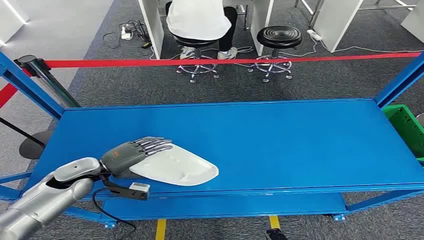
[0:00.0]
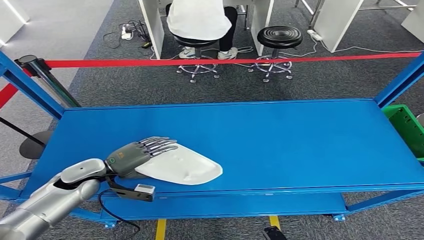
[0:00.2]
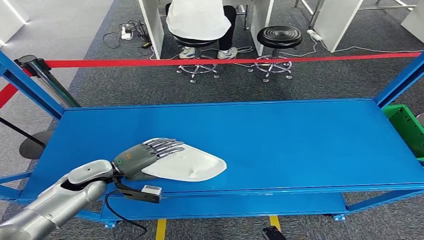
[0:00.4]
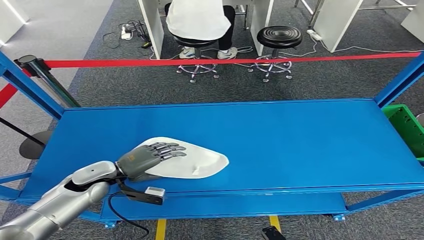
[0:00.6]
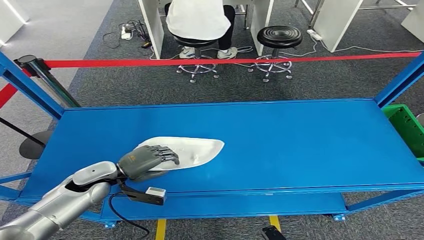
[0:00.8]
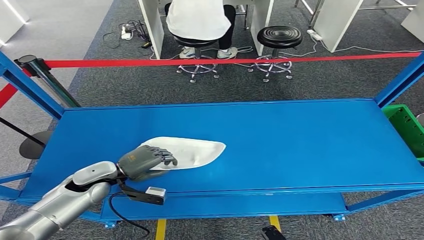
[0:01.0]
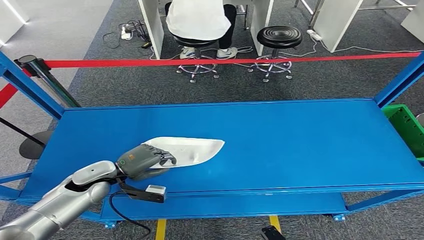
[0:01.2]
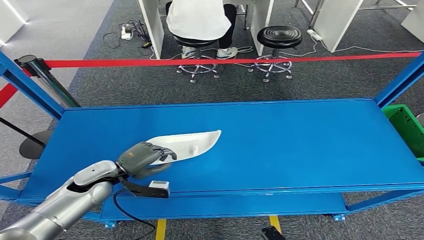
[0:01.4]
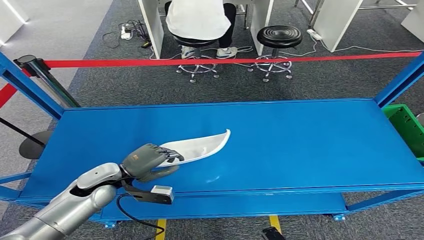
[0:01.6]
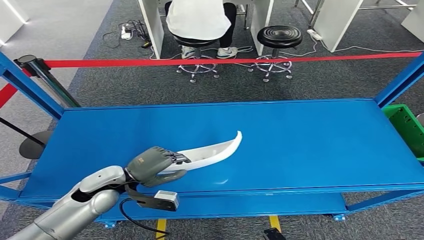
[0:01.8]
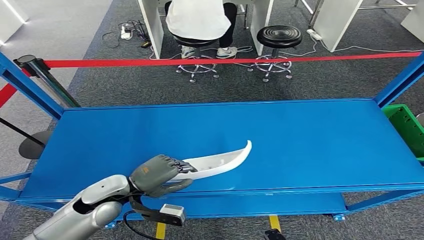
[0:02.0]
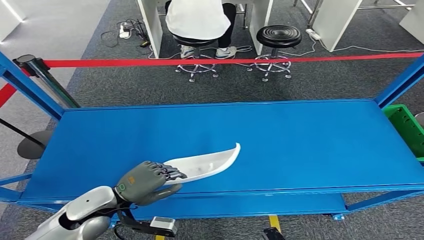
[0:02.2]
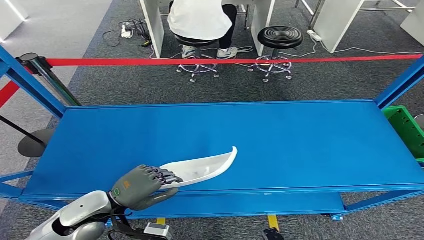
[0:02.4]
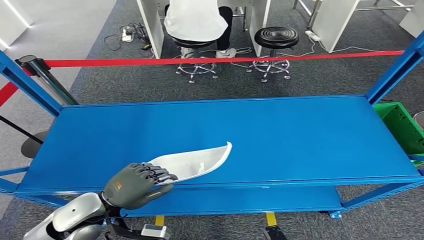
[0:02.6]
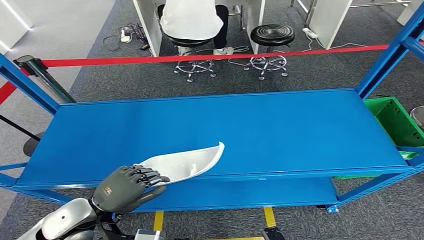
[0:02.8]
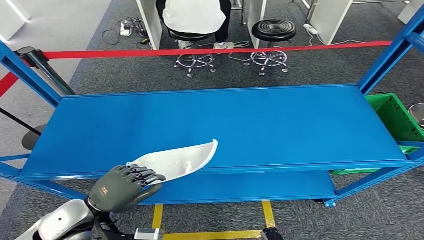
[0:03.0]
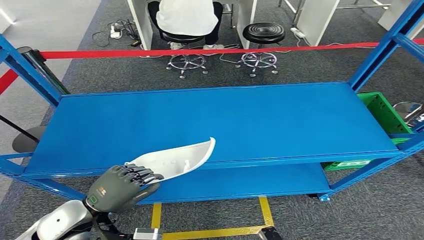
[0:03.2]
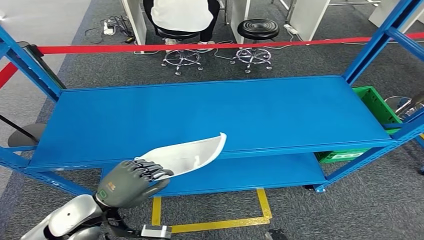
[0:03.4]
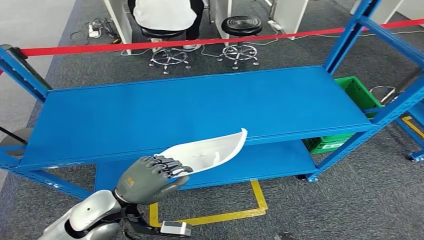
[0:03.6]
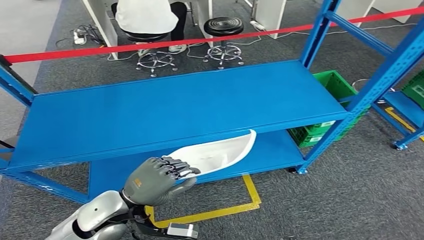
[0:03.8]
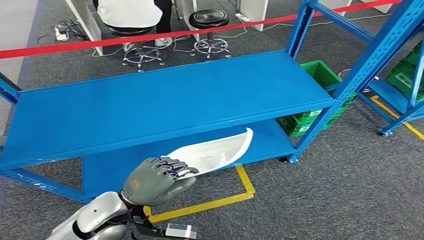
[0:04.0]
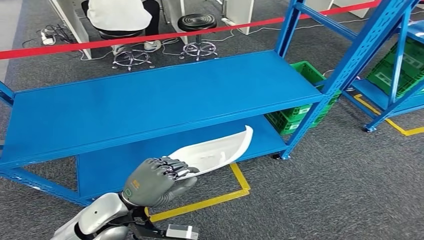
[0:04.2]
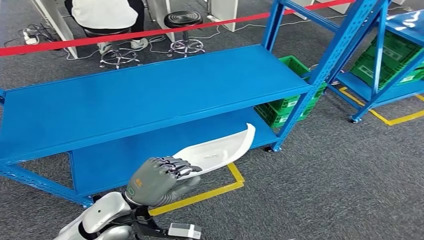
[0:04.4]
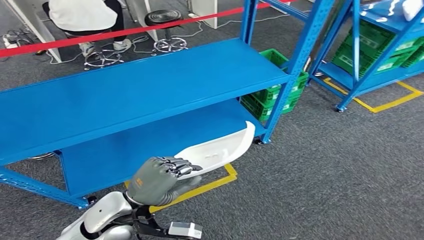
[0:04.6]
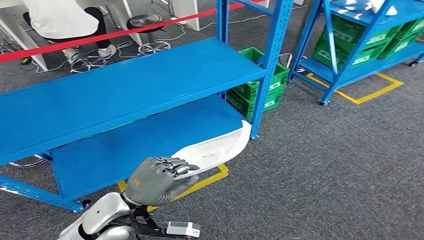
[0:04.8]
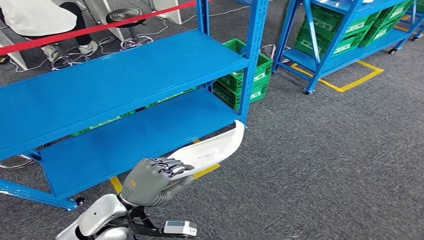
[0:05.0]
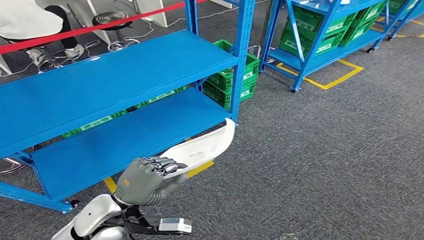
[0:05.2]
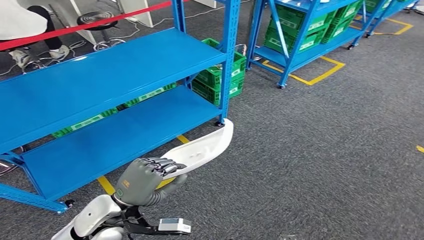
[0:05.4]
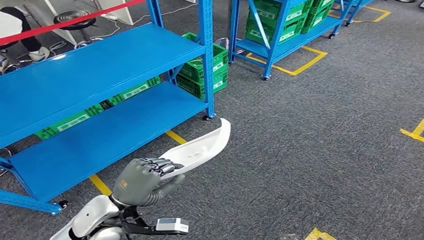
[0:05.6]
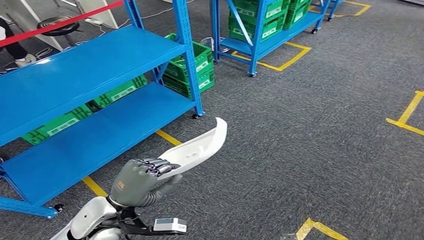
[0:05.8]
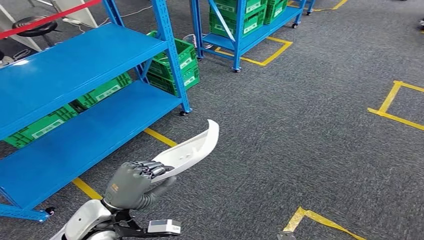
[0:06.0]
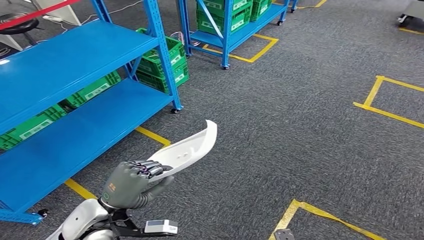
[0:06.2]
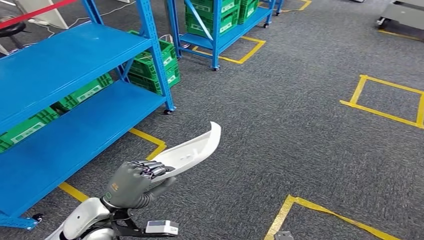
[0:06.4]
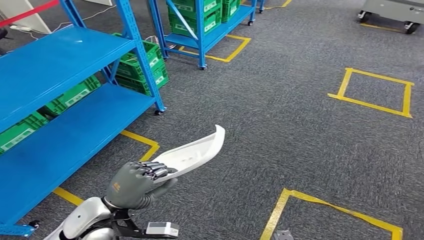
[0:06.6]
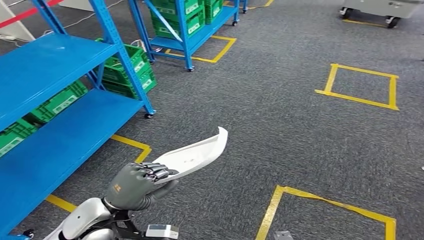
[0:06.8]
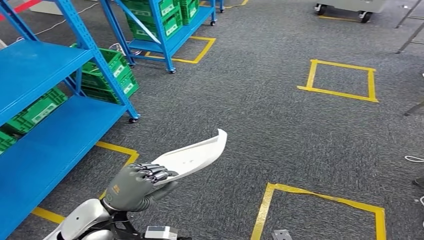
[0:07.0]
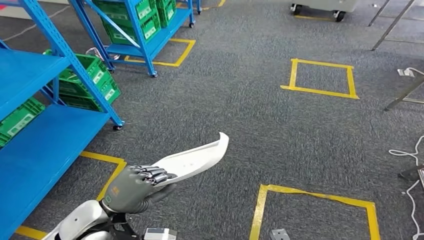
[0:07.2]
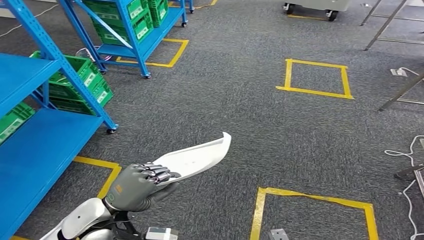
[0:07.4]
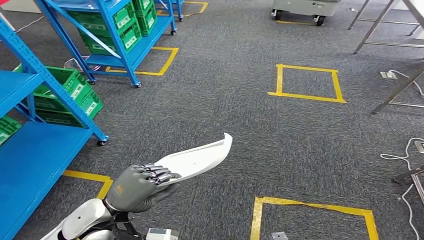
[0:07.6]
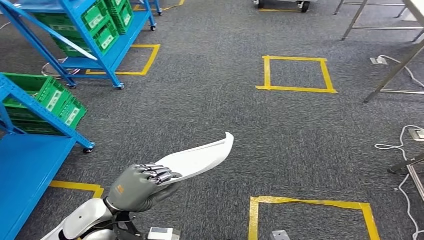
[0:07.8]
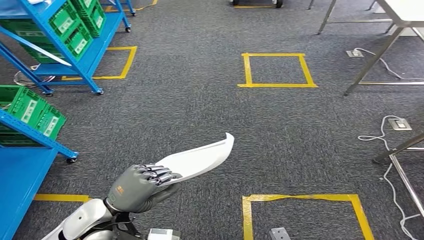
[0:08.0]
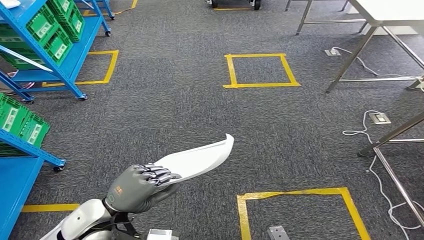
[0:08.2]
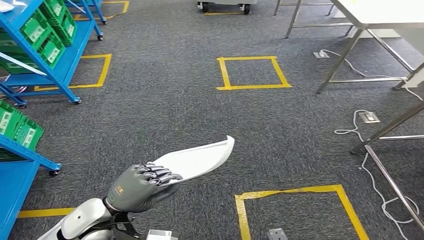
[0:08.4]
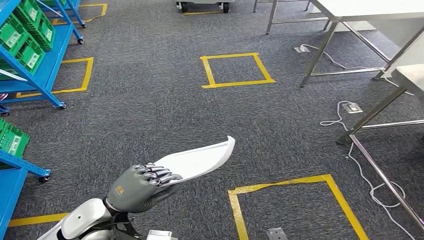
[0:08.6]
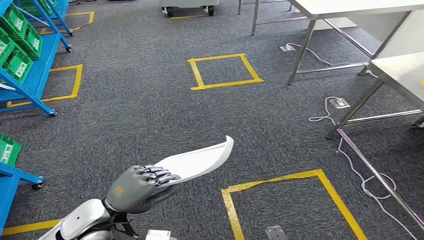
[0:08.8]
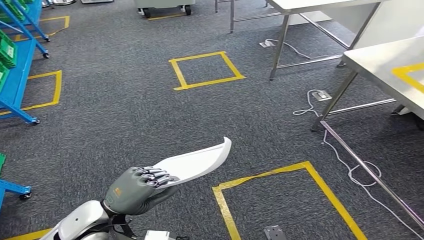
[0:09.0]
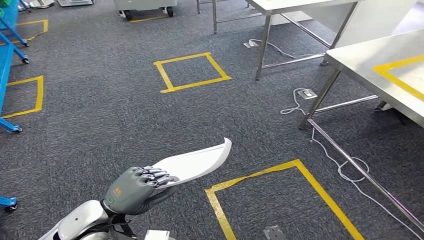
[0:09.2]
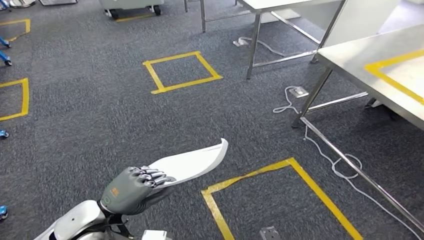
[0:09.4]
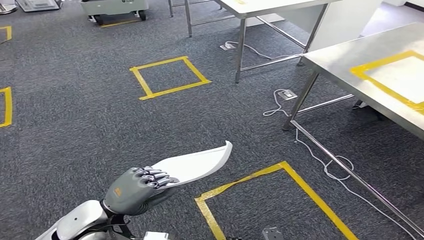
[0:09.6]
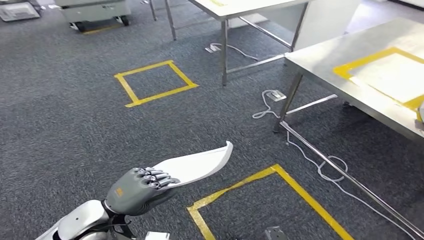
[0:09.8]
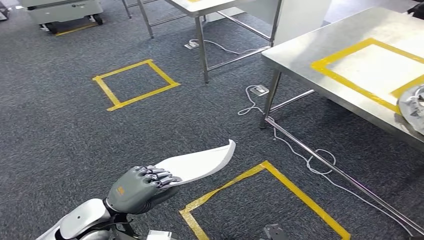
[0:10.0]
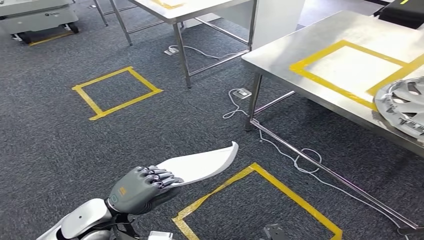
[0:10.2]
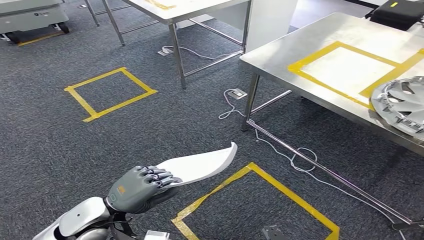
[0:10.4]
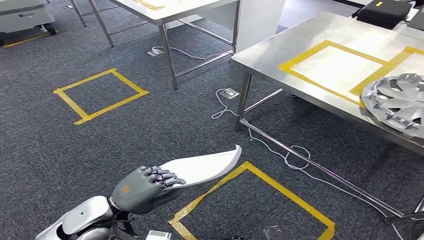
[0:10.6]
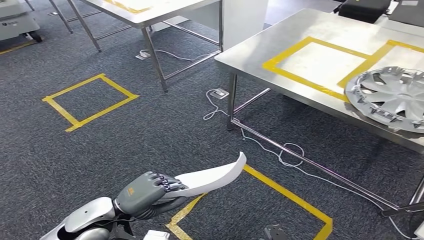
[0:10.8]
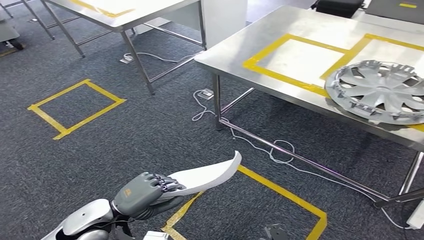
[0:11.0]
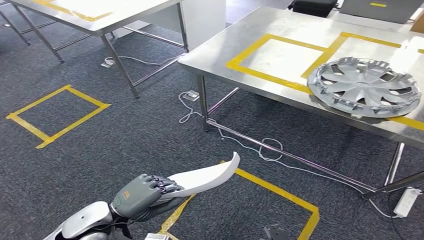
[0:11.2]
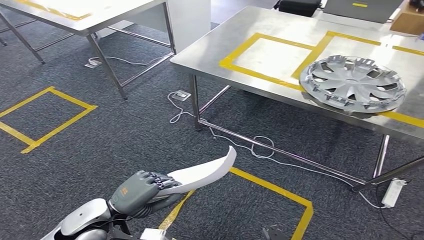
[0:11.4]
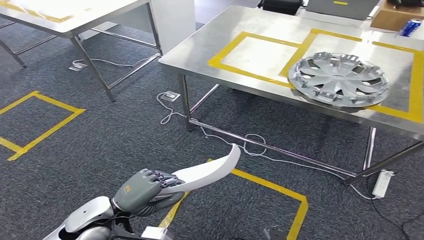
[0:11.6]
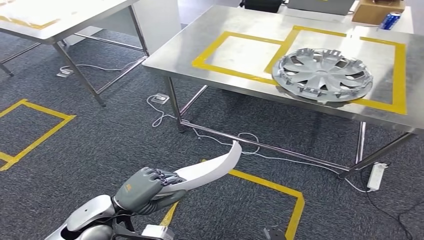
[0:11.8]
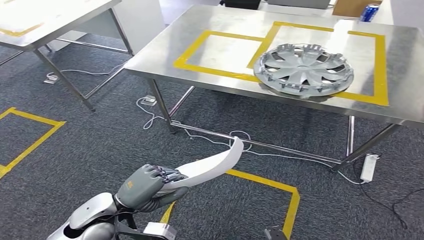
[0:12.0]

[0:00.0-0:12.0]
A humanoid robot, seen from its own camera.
Step, 0:00.0 to 0:05.0: Take small components from the rack.

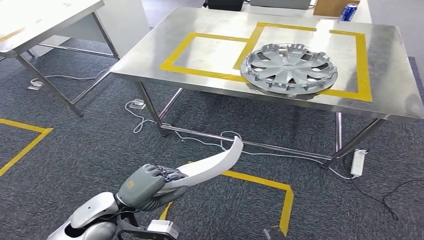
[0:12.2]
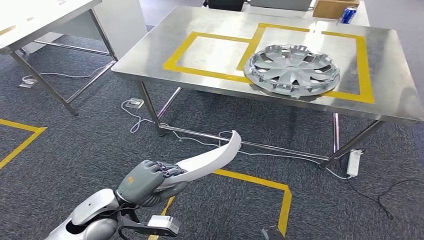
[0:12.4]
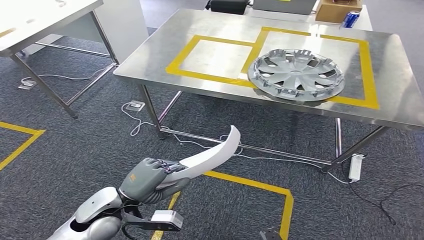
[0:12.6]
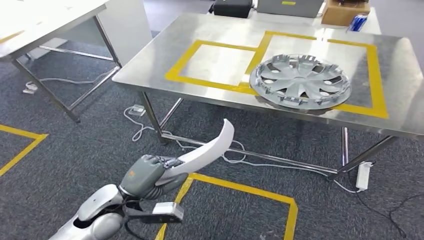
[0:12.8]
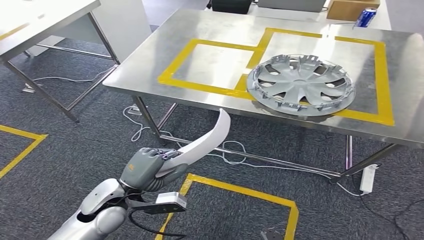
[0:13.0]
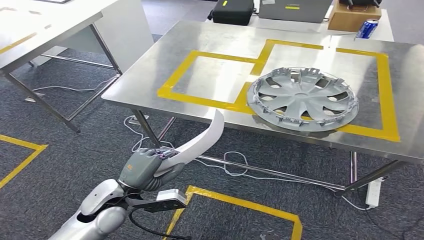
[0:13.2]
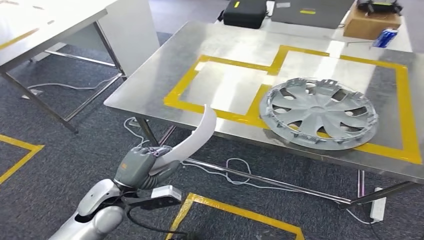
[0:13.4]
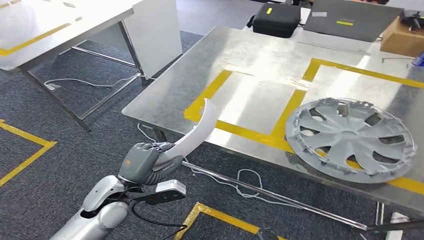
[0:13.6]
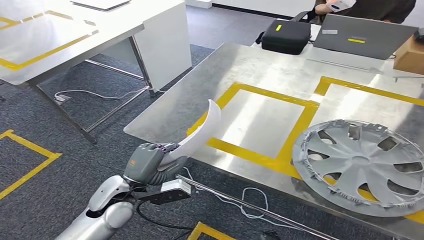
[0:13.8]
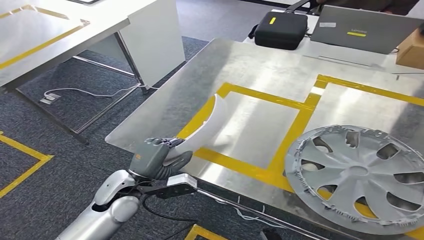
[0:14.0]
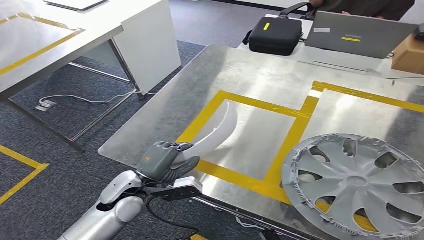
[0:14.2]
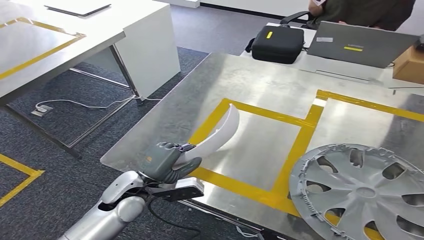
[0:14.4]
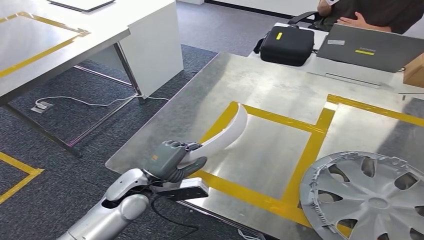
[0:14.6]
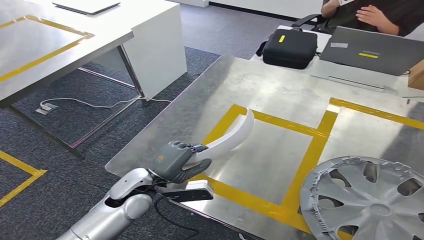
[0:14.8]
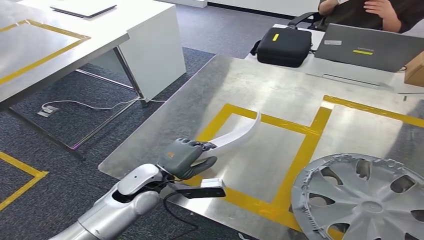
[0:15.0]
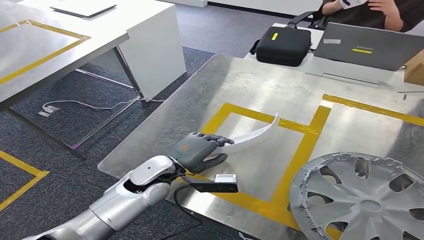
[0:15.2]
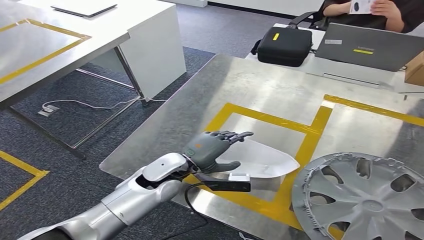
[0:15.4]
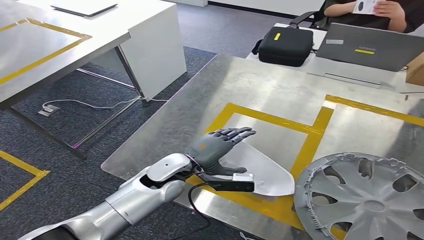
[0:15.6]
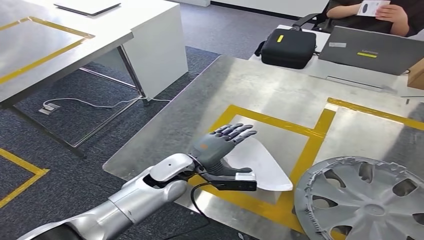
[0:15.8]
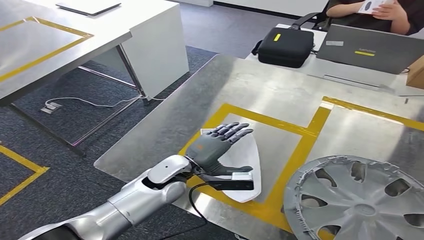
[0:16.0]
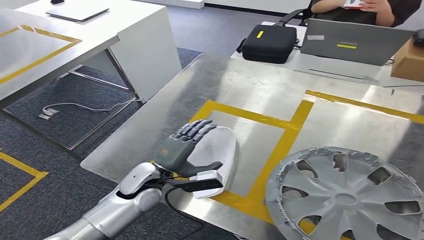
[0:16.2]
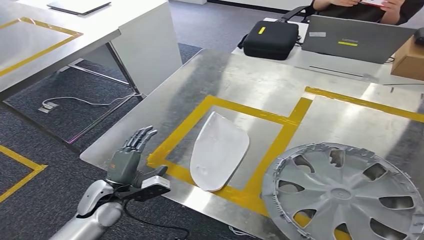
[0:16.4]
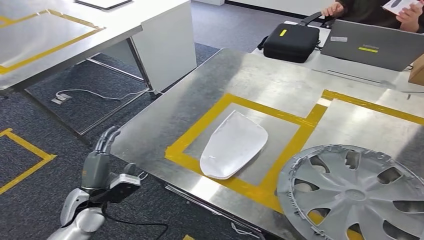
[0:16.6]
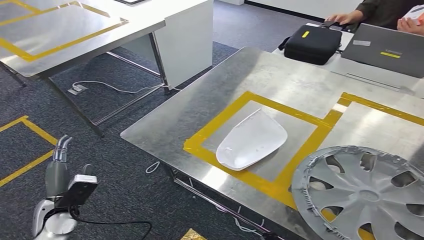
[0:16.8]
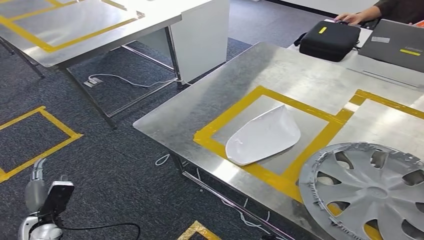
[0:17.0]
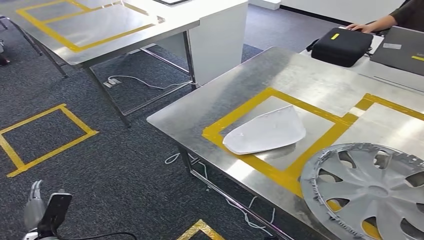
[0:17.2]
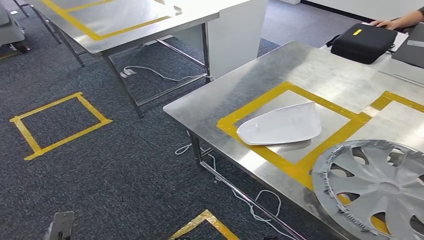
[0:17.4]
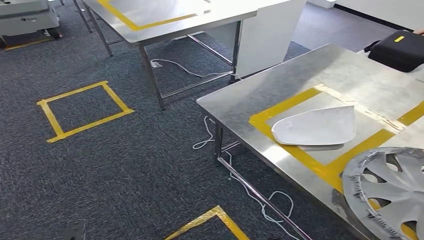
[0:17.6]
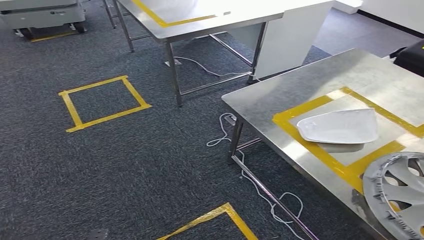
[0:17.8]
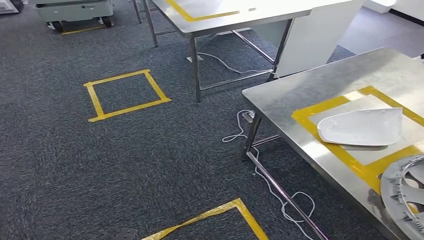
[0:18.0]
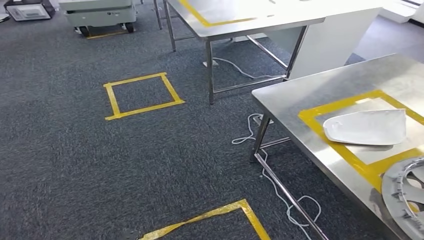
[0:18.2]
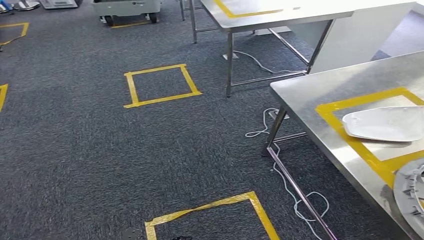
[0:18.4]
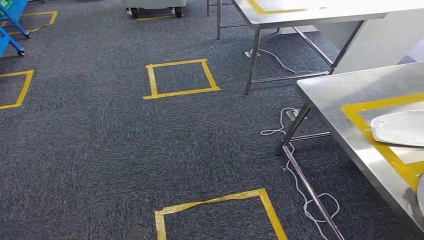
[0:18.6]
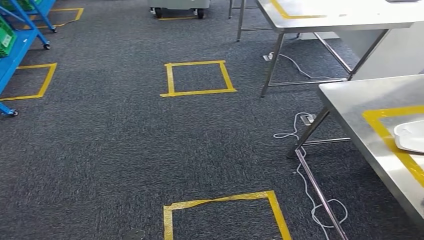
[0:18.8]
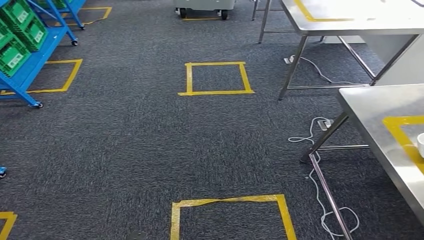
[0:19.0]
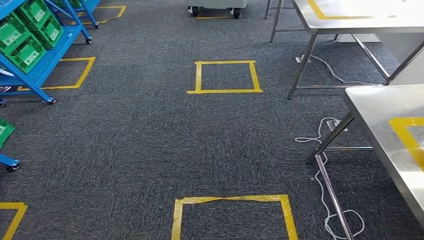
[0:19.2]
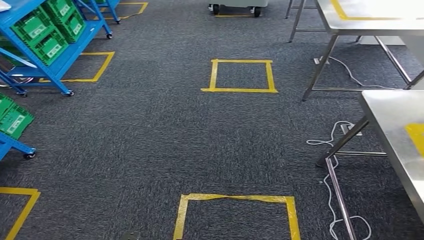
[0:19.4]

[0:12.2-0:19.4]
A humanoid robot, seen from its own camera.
Step, 0:14.2 to 0:17.6: Insert the small parts into the corresponding holes on the workbench.
